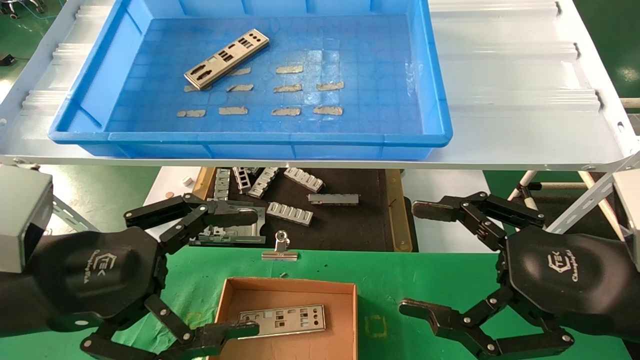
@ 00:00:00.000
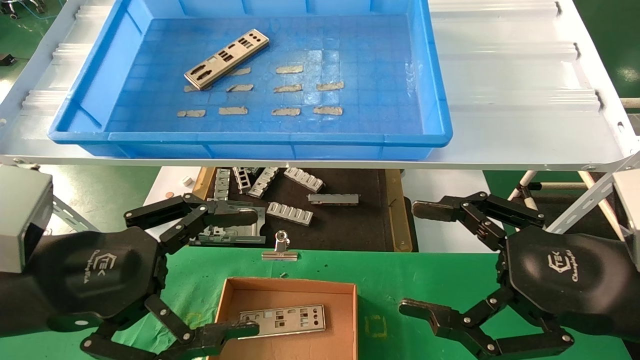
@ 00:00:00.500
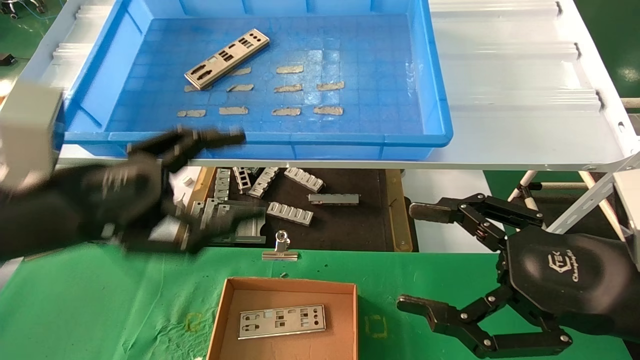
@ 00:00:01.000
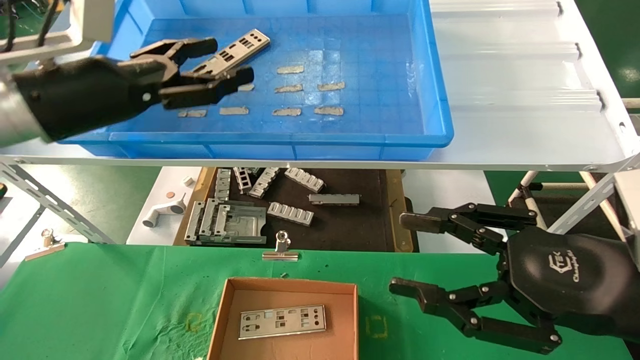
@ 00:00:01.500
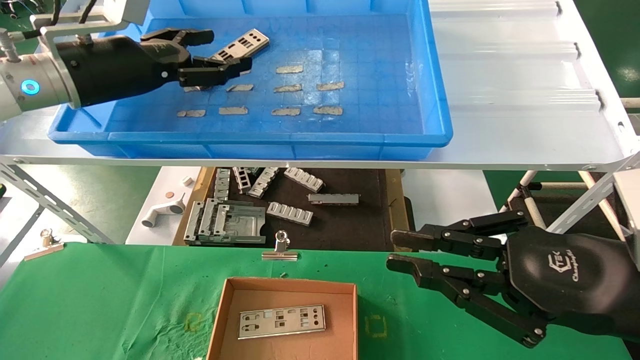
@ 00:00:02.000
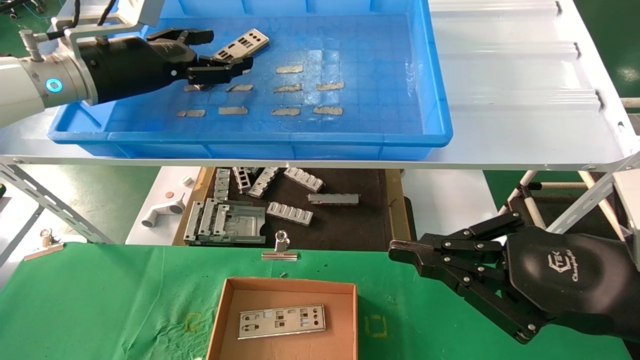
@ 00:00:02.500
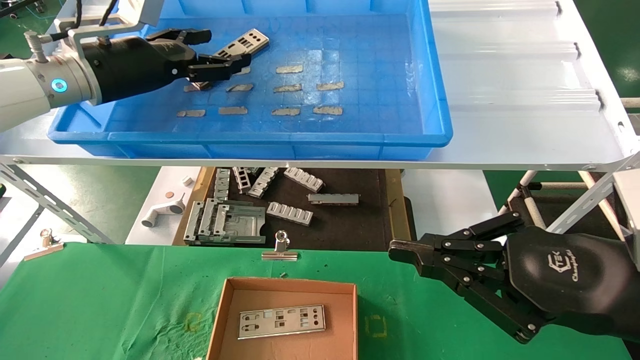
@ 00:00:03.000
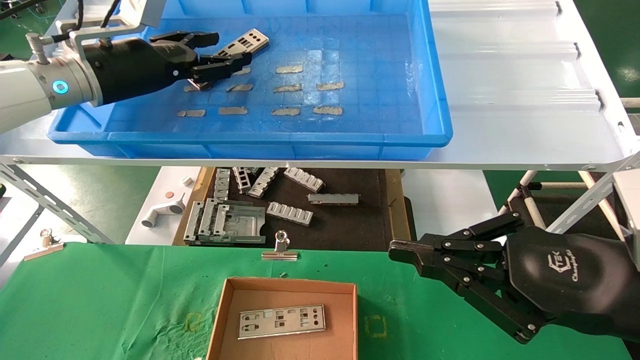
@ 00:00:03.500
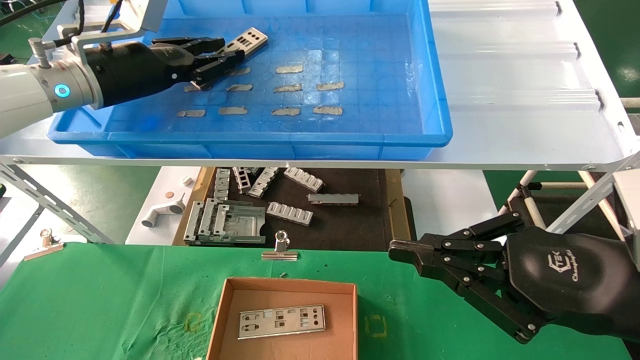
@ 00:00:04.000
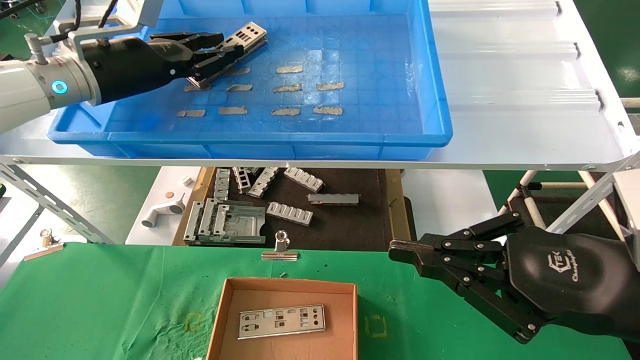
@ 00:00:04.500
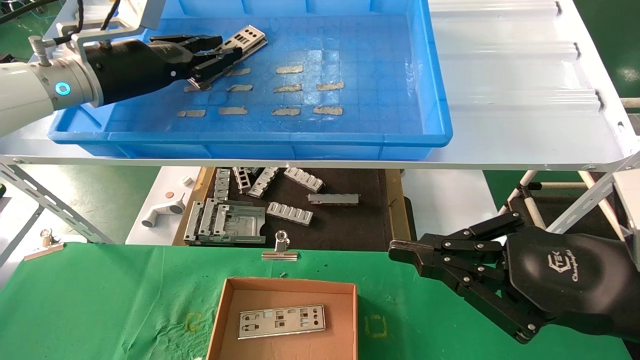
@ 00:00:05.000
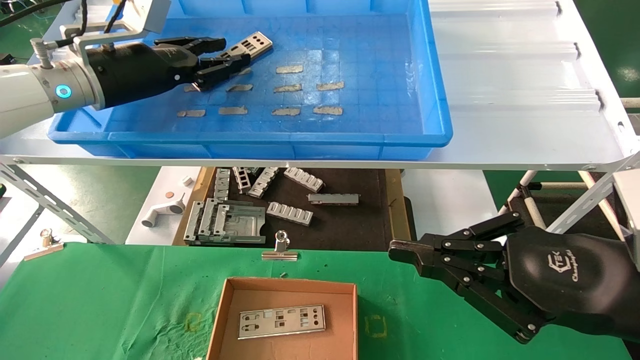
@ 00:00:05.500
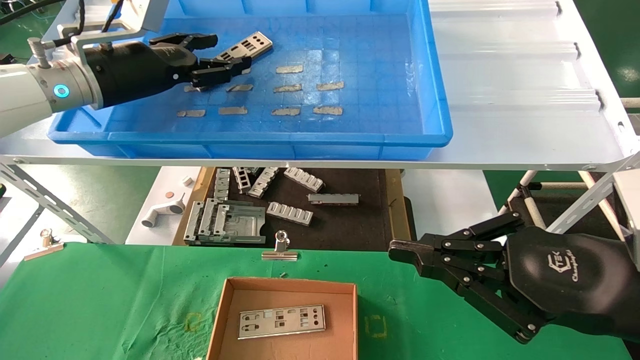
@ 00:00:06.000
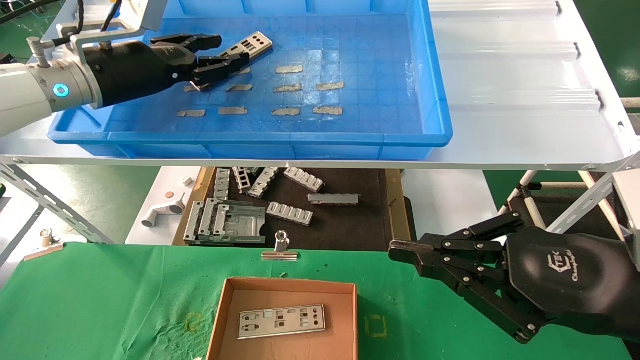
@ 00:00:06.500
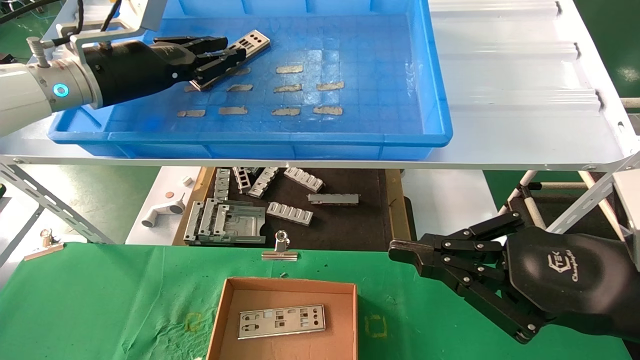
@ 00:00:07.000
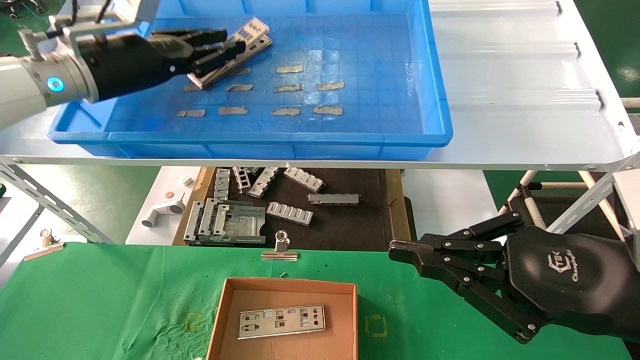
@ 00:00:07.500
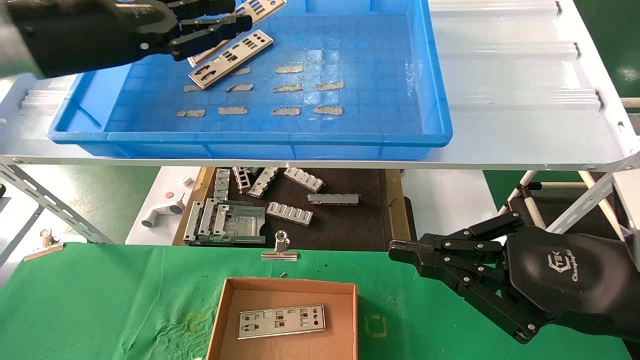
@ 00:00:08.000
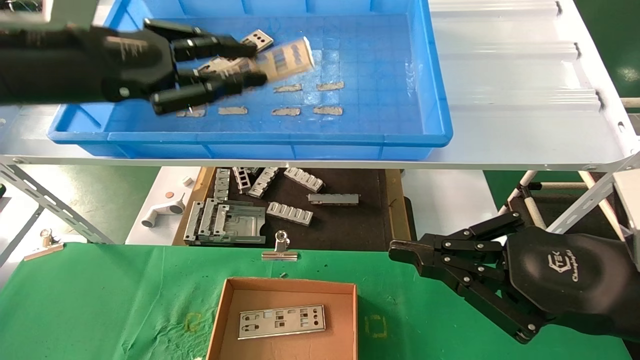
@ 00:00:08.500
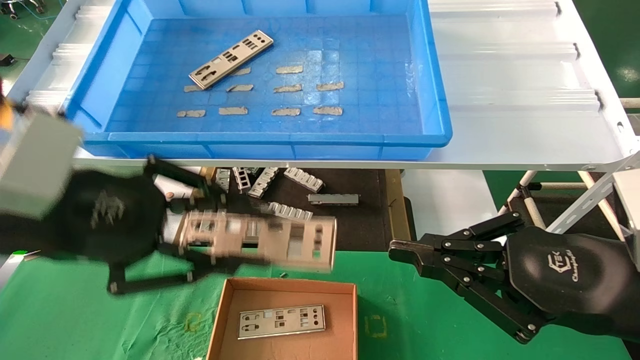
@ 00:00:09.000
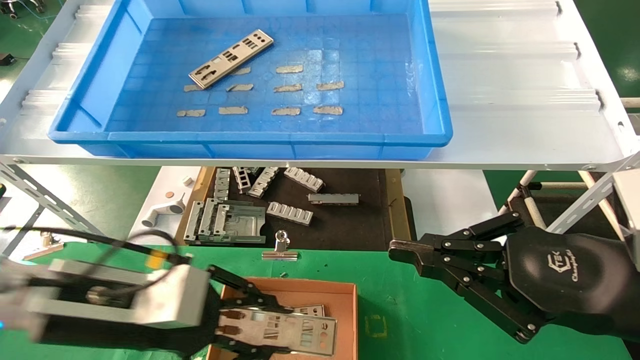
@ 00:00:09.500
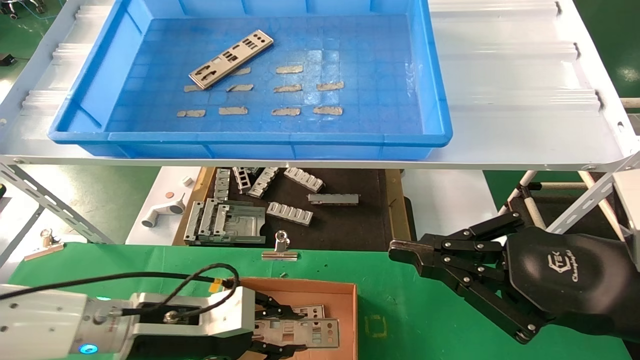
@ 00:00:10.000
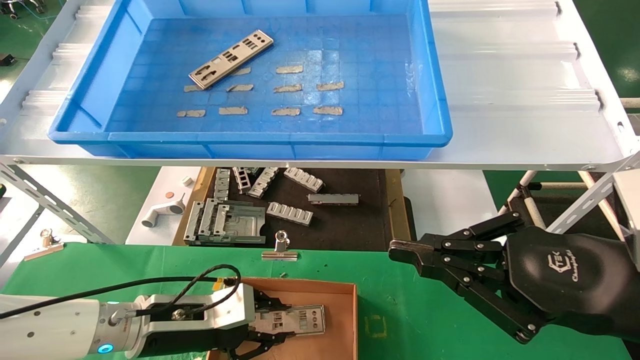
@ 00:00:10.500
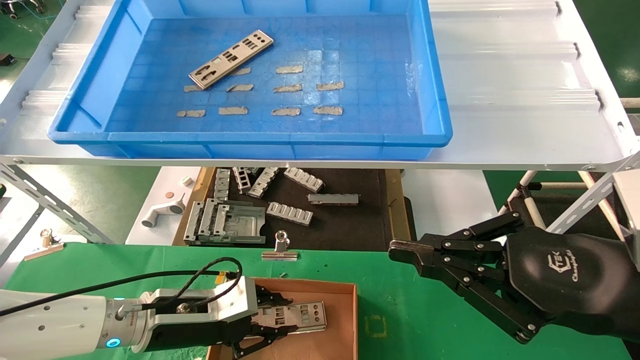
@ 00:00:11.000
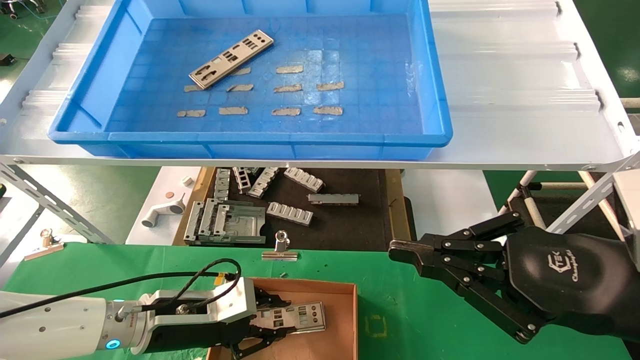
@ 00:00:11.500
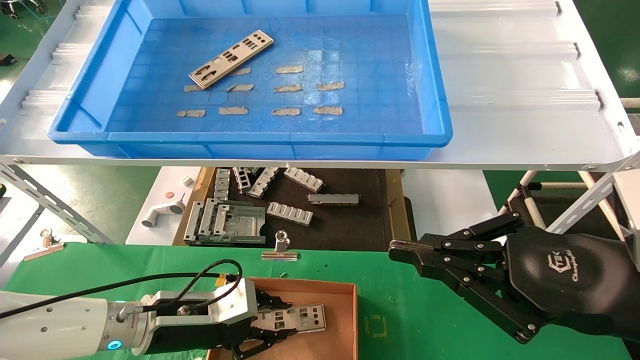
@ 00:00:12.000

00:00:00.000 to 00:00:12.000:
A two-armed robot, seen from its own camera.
Task of the whole recording: pick up the parts on the tray and put them in the cardboard box.
Step, 00:00:01.000 to 00:00:07.000: Pick up the IO bracket from the container box.
00:00:00.000 to 00:00:02.000: The left gripper moves forward and upward, about 25 cm, while the right gripper closes its fingers.
00:00:02.000 to 00:00:04.000: The left gripper closes up.
00:00:04.000 to 00:00:06.000: The left gripper opens its fingers.
00:00:06.000 to 00:00:08.000: The left gripper shifts approximately 5 cm backward, and closes its fingers.
00:00:08.000 to 00:00:10.000: The left gripper goes approximately 30 cm downward.
00:00:10.000 to 00:00:12.000: The left gripper ends up some 5 cm from where it was.

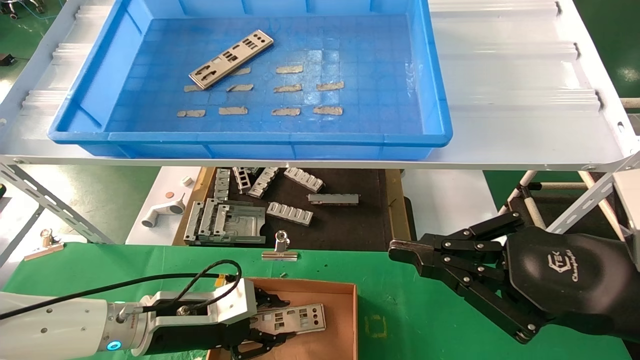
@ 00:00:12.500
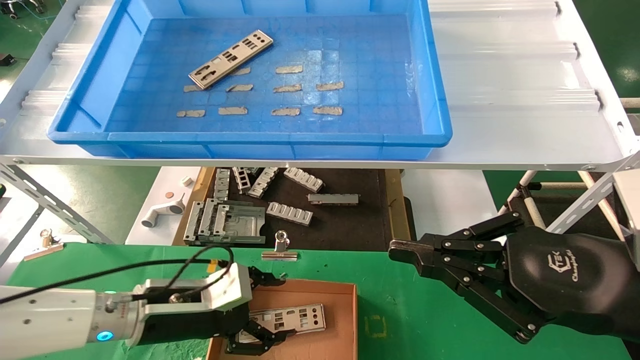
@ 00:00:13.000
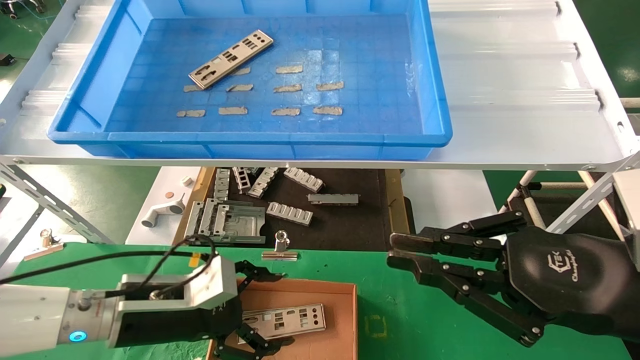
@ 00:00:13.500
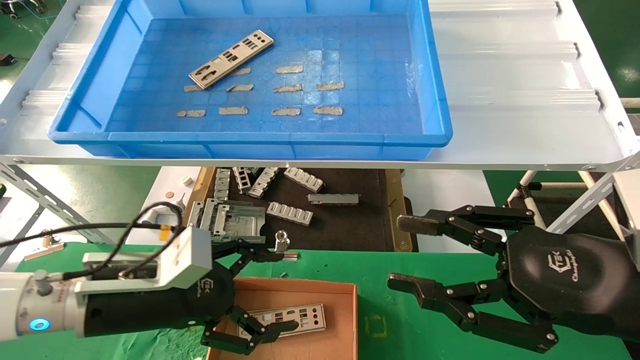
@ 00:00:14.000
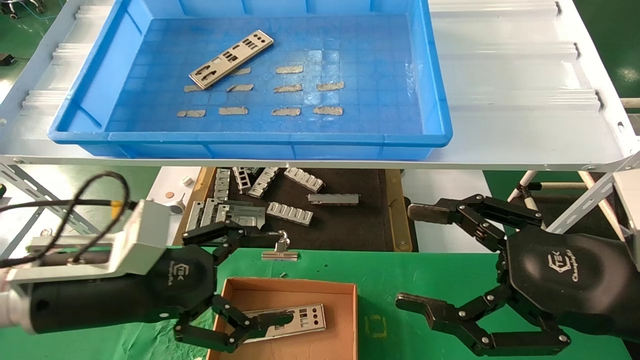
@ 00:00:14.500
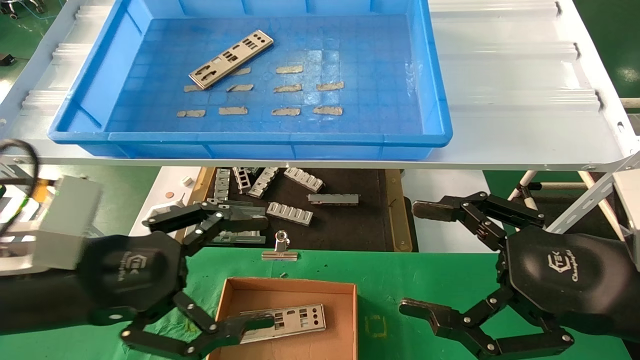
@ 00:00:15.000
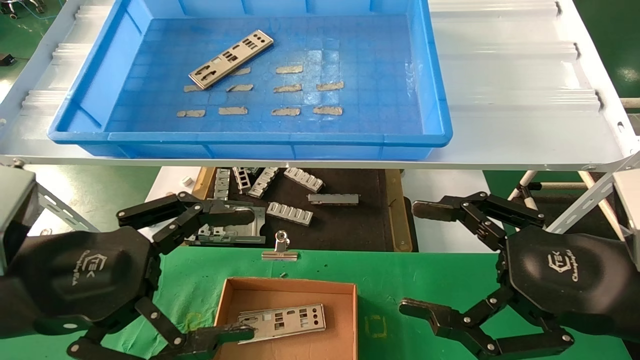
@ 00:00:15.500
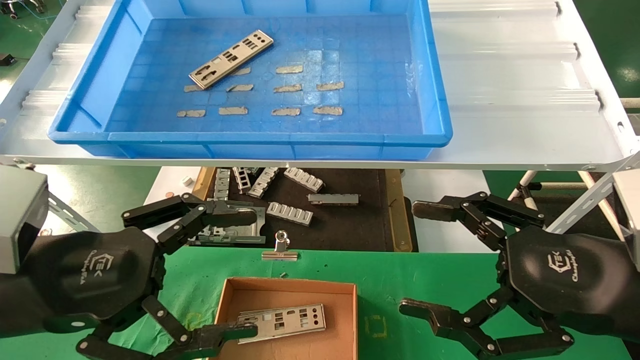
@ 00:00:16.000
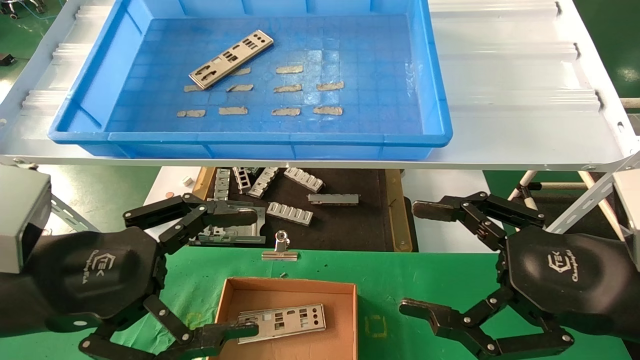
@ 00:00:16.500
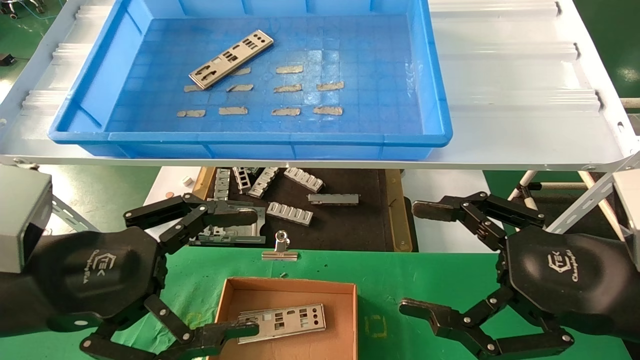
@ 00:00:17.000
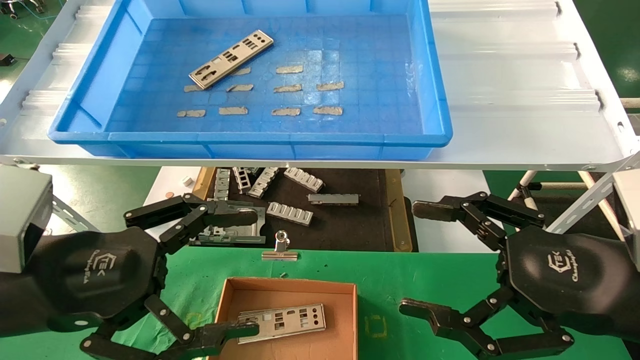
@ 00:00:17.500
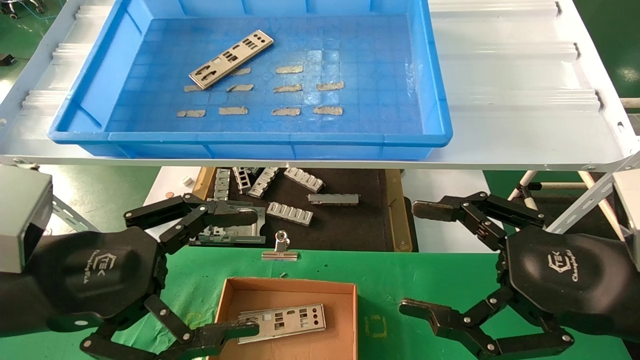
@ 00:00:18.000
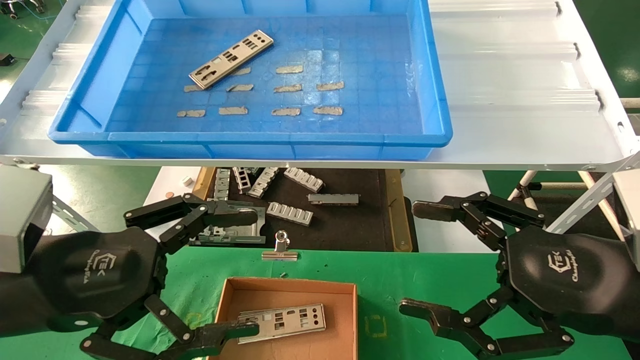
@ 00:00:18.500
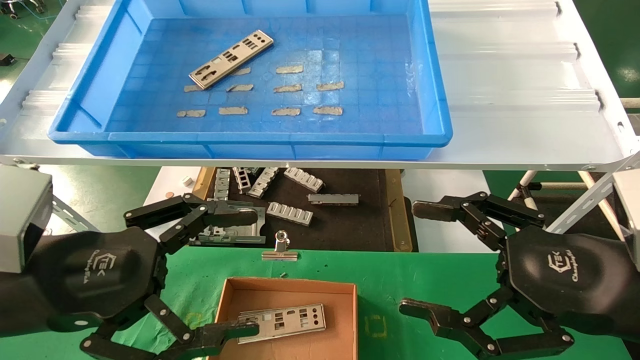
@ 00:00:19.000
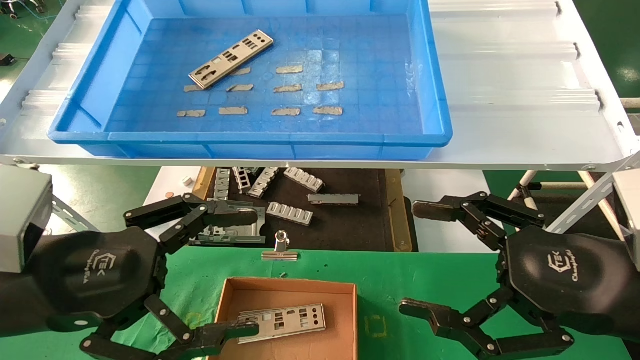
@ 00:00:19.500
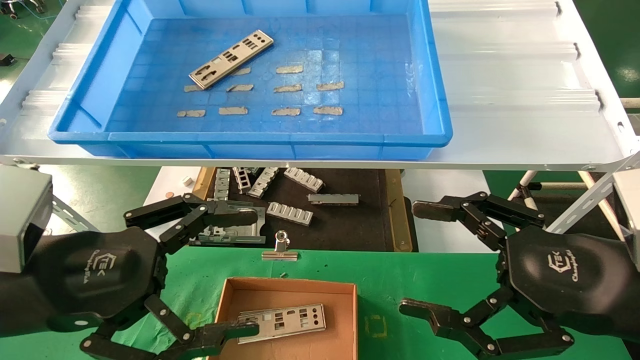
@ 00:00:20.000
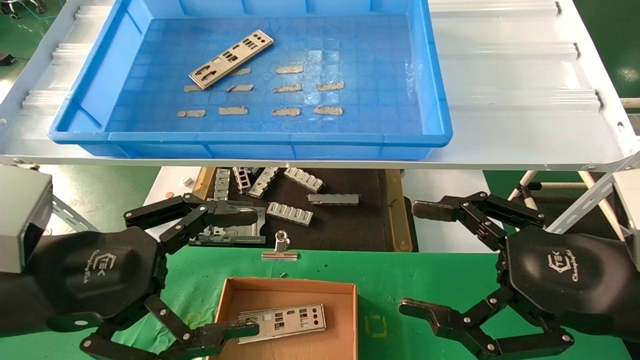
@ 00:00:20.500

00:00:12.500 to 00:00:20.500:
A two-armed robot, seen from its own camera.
Task of the whole recording: pick up the parts on the tray and put them in the cardboard box.
00:00:12.500 to 00:00:14.500: The right gripper opens. Meanwhile the left gripper goes some 15 cm upward and backward, and opens its fingers.
00:00:14.500 to 00:00:16.500: The left gripper is displaced backward by about 5 cm.
00:00:16.500 to 00:00:20.500: The two grippers keep their place.
